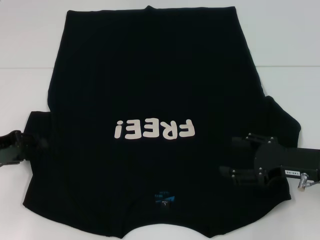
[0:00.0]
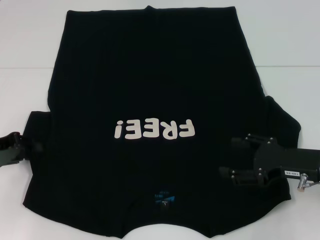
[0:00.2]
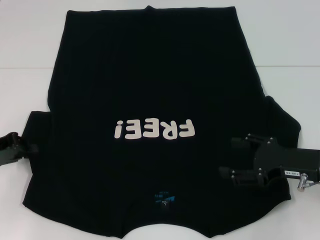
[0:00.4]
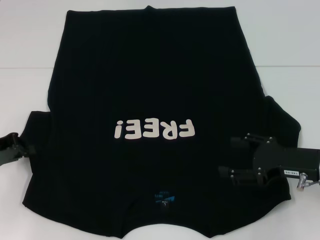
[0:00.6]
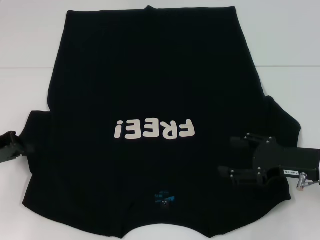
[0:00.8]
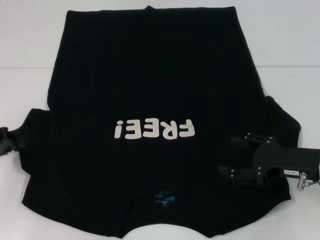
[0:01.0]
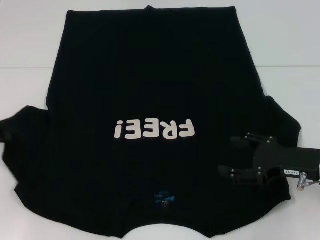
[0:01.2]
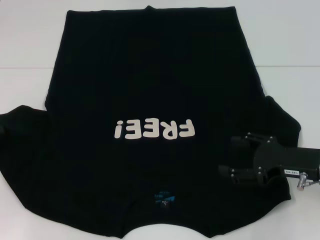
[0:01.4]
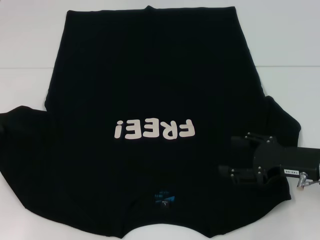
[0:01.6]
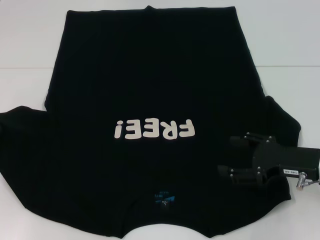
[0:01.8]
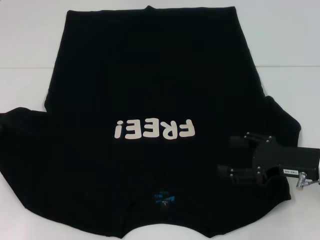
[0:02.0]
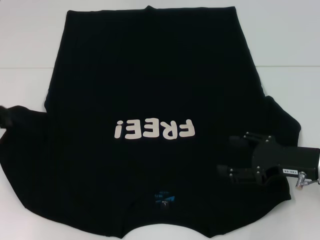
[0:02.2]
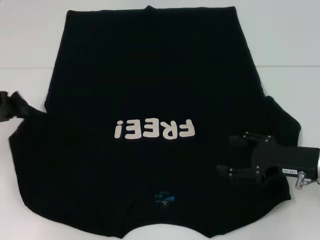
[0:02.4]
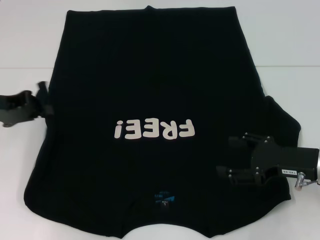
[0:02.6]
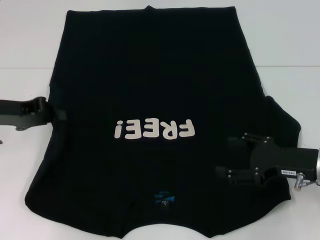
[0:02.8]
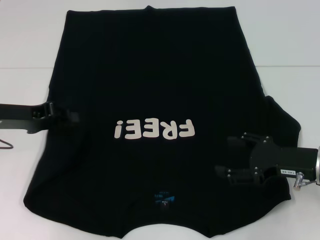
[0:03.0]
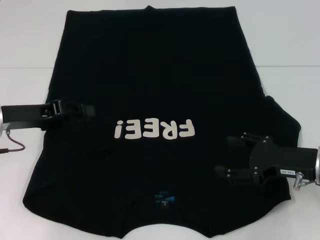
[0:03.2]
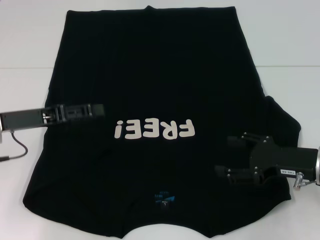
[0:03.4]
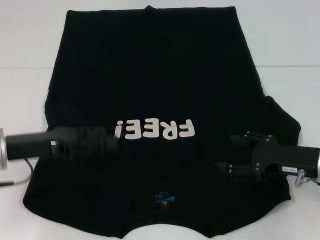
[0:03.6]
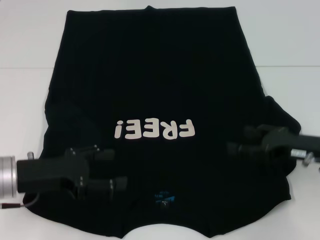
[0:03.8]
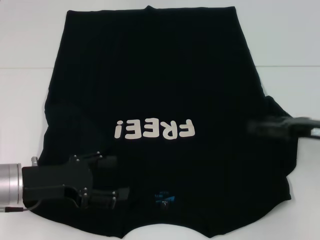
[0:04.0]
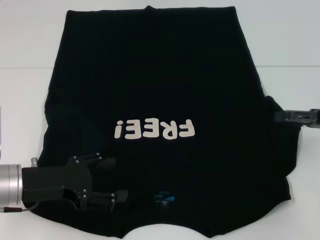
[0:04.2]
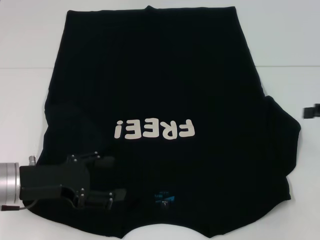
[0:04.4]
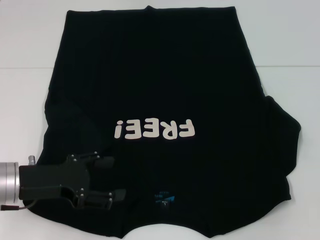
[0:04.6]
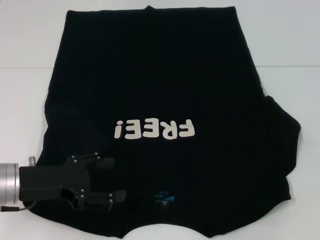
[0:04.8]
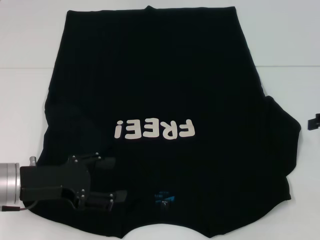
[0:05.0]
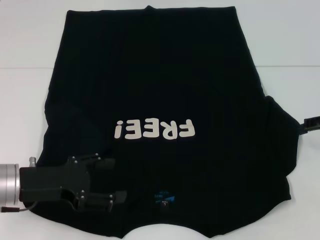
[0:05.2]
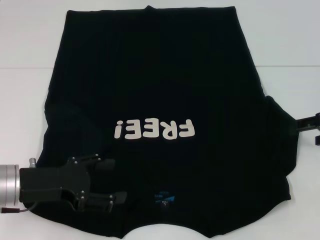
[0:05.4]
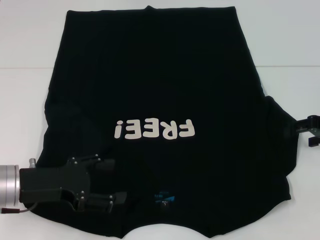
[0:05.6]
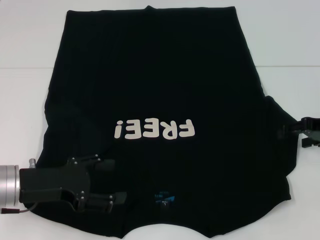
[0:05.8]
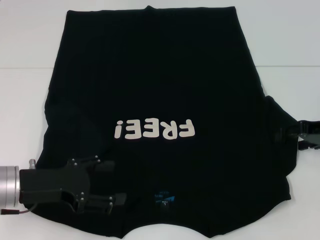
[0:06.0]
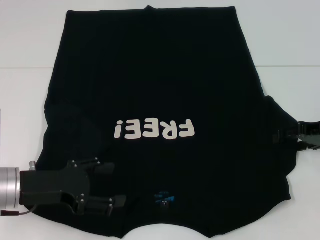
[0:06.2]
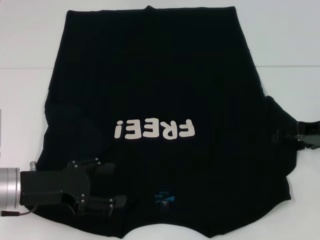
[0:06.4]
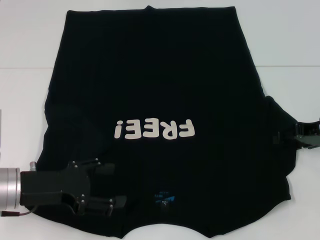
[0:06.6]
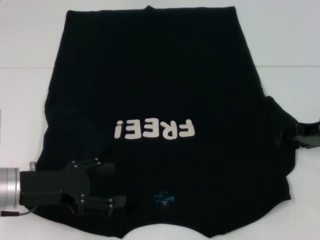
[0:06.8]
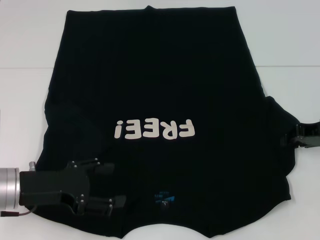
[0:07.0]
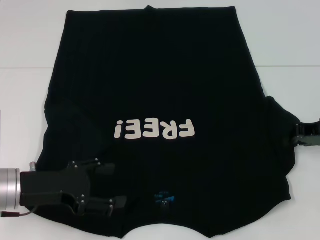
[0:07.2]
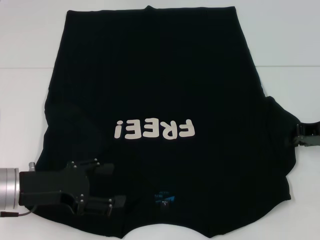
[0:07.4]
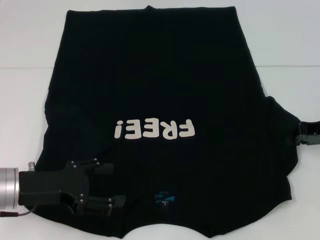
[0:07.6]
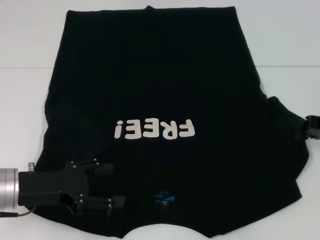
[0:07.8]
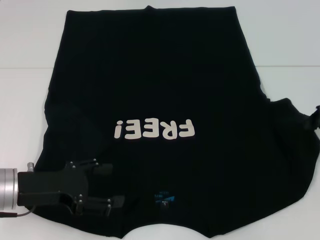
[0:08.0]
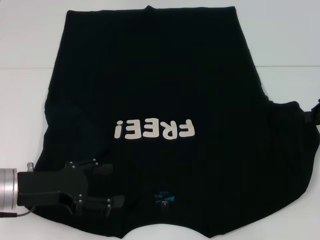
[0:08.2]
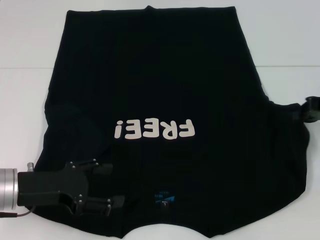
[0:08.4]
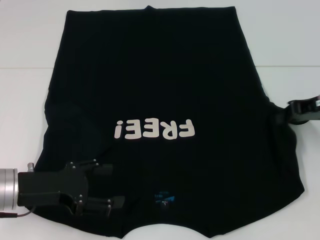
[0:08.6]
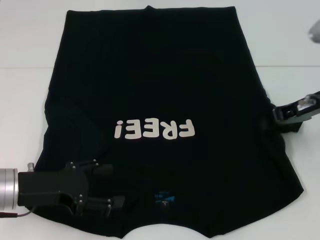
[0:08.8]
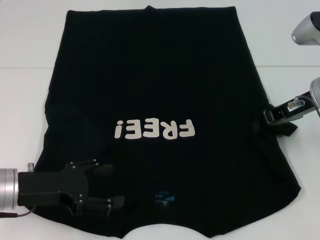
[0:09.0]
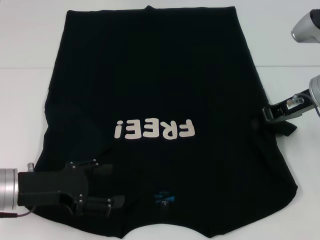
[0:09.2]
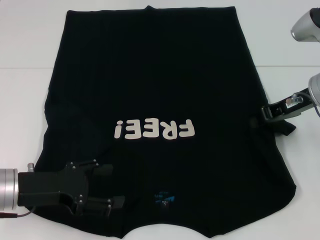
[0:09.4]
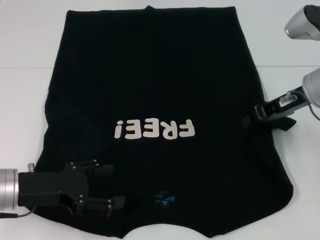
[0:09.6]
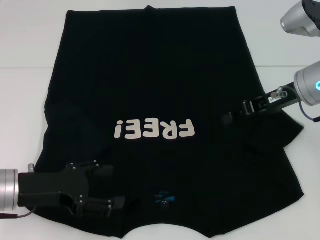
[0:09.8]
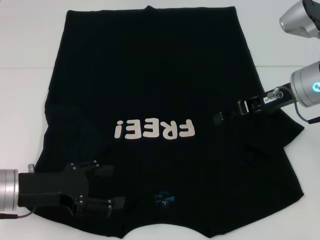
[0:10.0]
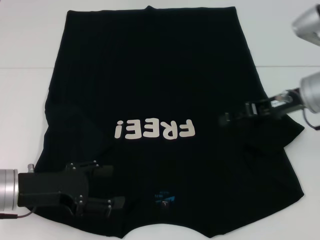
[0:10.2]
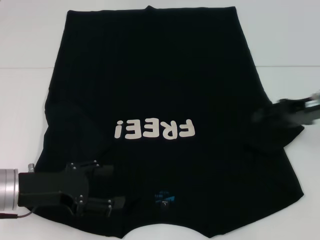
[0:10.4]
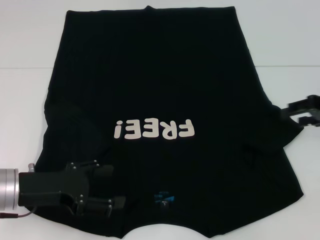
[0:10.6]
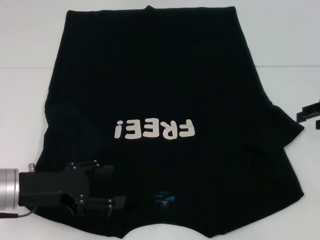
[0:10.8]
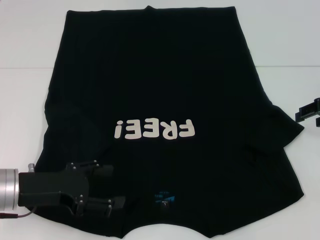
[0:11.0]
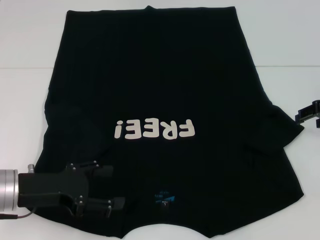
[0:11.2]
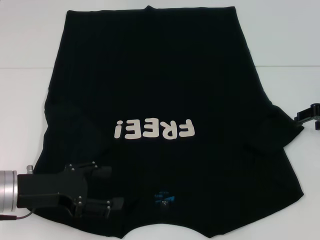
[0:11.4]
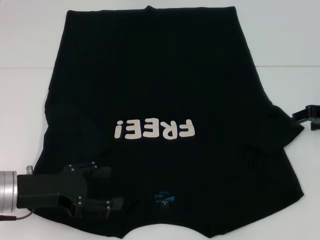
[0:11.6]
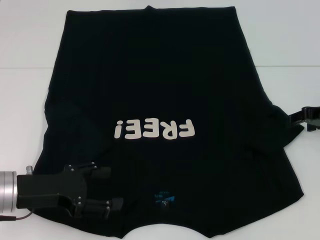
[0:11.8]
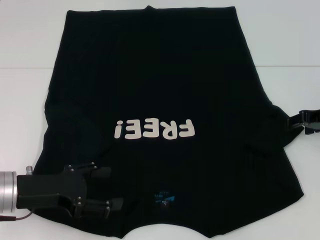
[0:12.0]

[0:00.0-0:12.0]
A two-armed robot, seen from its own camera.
Step, 0:00.0 to 0:03.6: Fold the bottom left sleeve with your left hand.
0:00.0 to 0:01.6: The left gripper moves approximately 5 cm, and closes.
0:01.6 to 0:03.0: The left gripper travels to the right by roughly 10 cm.
0:03.0 to 0:04.4: The left gripper goes some 10 cm backward and downward, and opens, while the right gripper moves to the right and upward, roughly 15 cm.
0:04.4 to 0:06.0: The right gripper shifts some 5 cm to the left.
0:06.0 to 0:07.6: The right gripper closes up.
0:07.6 to 0:09.0: The right gripper travels to the left by approximately 5 cm.
0:09.0 to 0:10.4: The right gripper opens up.

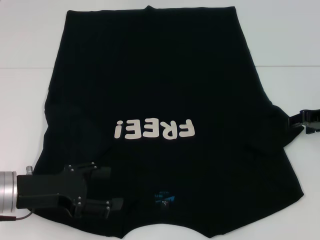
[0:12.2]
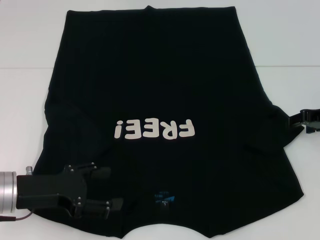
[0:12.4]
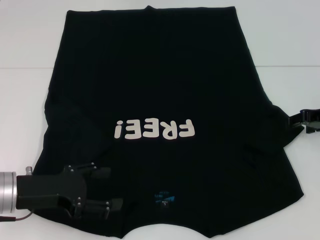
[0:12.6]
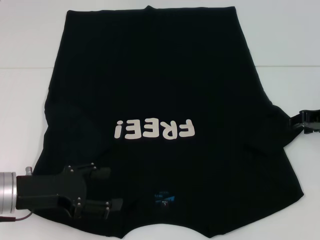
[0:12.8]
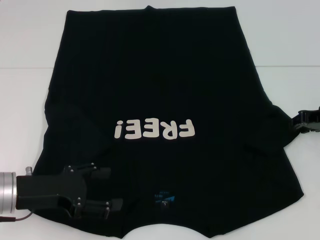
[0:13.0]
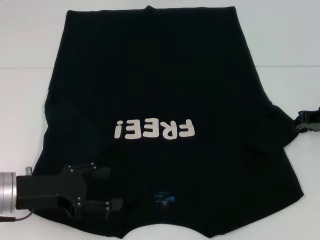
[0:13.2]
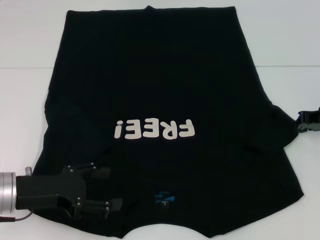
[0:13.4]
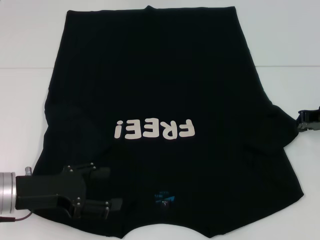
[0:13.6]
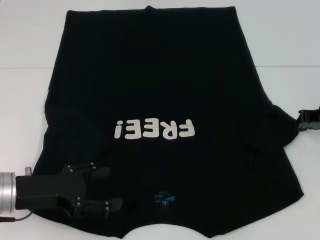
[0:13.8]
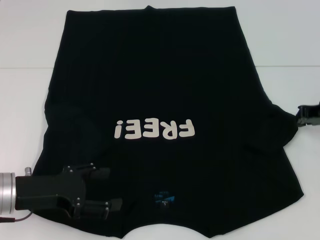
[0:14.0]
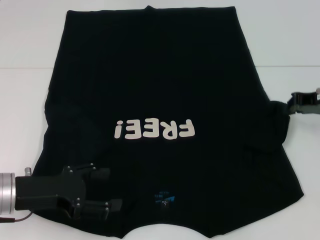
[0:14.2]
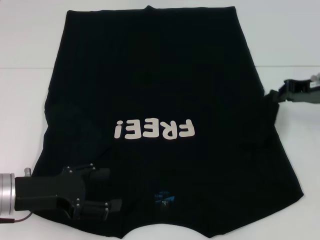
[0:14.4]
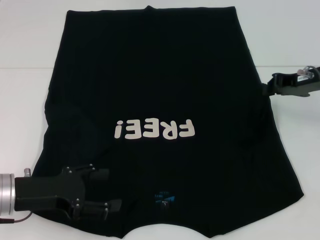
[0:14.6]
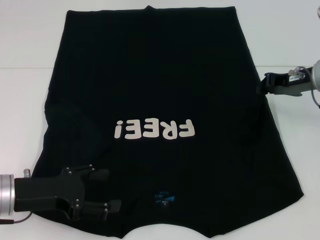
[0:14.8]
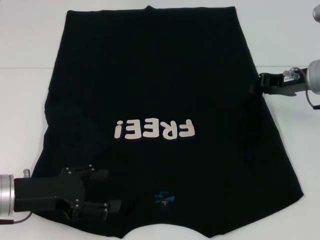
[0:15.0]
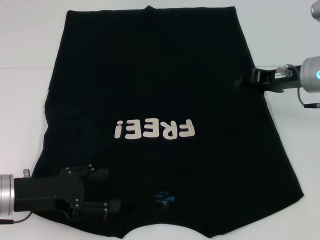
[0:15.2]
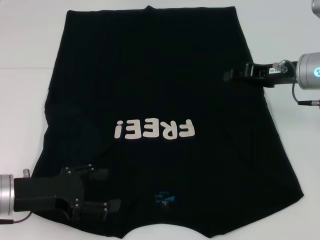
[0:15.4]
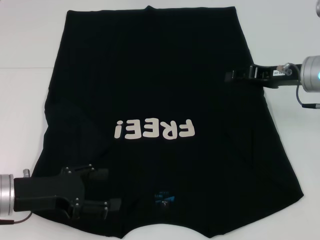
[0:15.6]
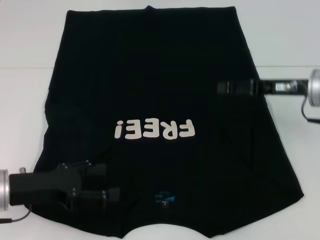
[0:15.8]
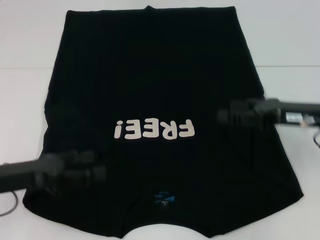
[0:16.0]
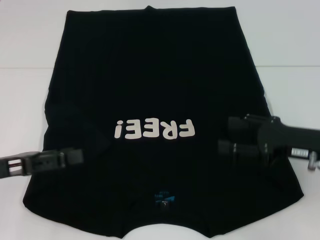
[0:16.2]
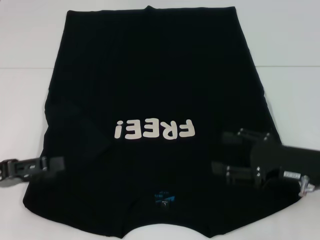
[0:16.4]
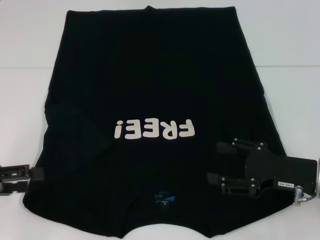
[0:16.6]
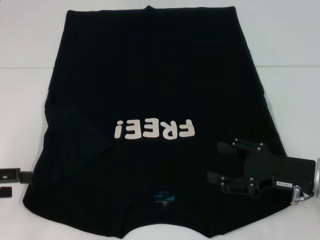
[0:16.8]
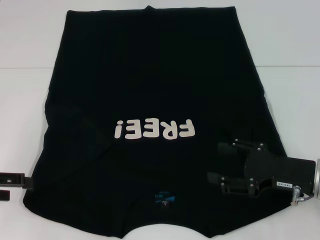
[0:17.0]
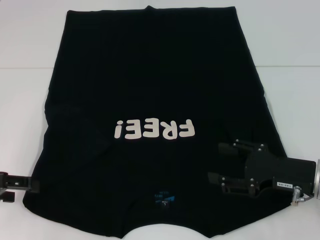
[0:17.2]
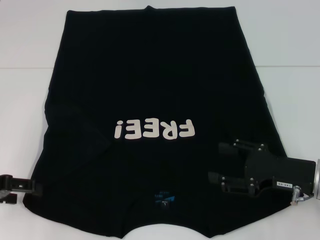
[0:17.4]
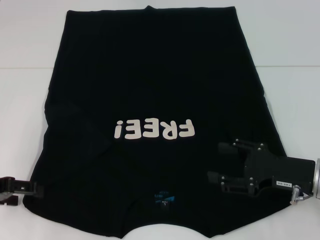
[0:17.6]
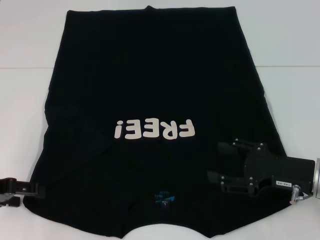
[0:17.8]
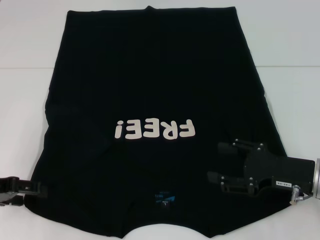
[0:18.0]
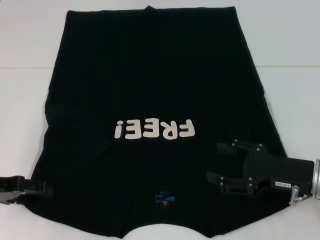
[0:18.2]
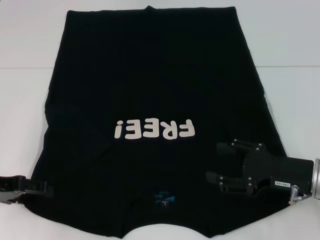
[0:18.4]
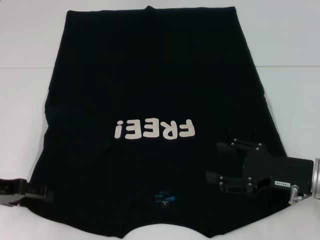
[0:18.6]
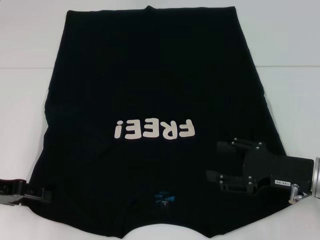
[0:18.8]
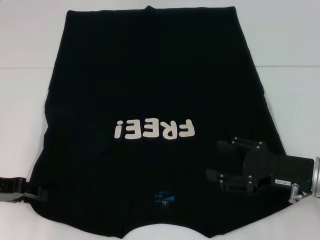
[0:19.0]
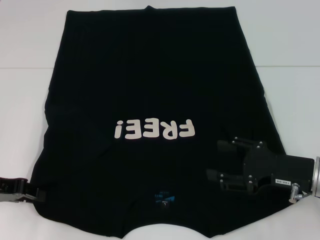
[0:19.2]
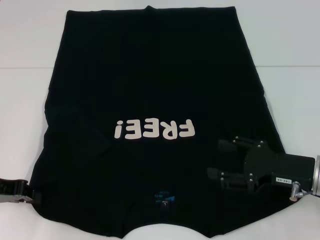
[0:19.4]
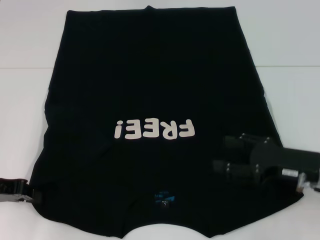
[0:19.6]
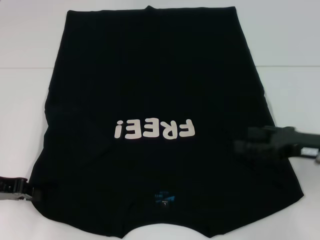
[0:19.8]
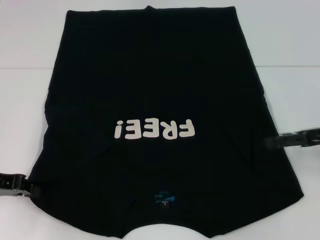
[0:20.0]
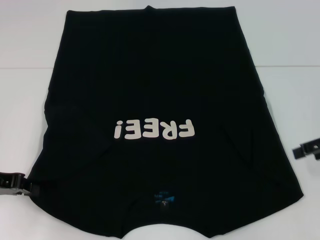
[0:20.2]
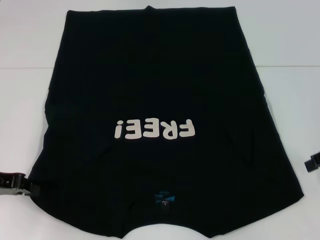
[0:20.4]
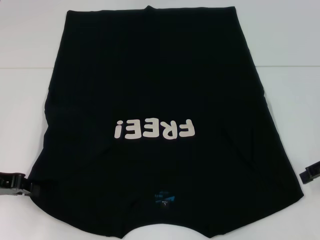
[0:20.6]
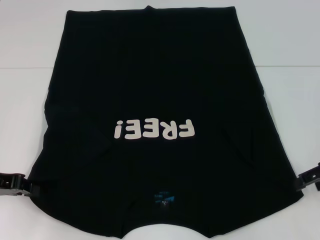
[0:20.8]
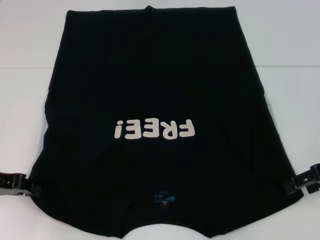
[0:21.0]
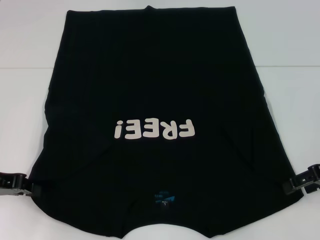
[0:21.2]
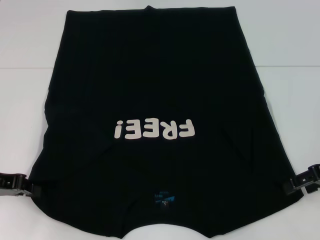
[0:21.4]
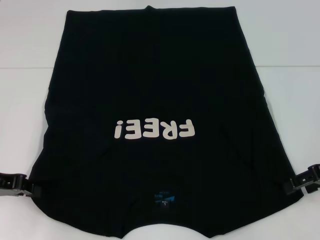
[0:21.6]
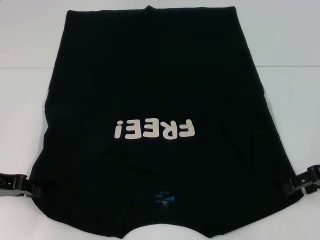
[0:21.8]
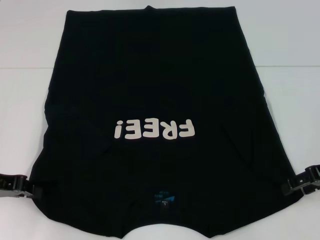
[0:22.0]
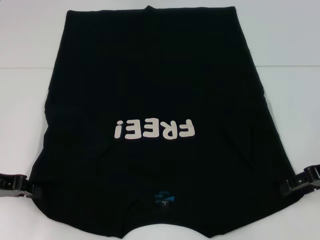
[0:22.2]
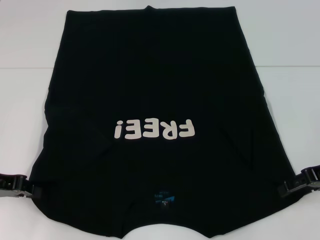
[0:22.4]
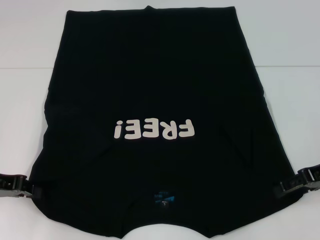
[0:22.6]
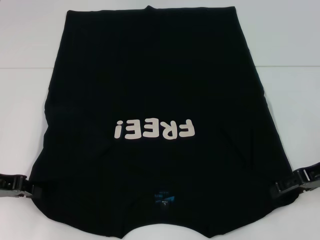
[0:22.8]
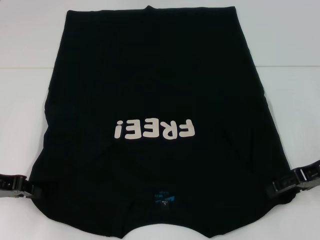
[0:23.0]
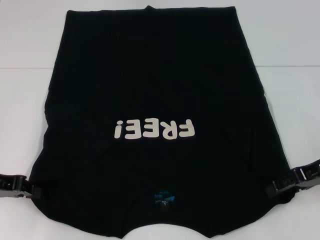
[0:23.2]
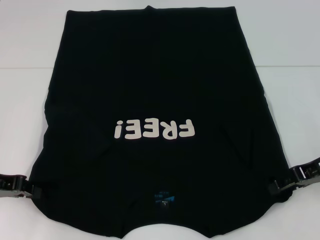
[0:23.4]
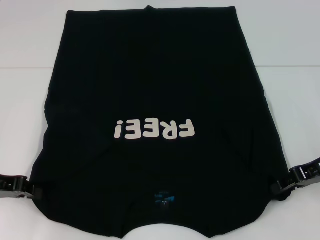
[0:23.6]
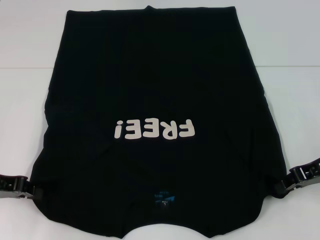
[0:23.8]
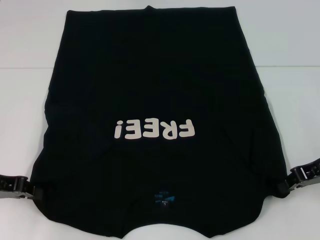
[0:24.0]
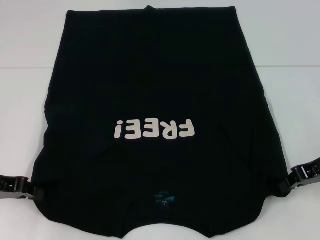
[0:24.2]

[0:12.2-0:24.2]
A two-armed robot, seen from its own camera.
Step, 0:12.2 to 0:16.4: Fold the bottom right sleeve with your right hand.
Step, 0:16.6 to 0:23.4: Grab the bottom left corner with your left hand.
Step, 0:16.6 to 0:23.4: Grab the bottom right corner with your right hand.
0:13.8 to 0:15.2: The right gripper travels to the left by about 5 cm.
0:15.2 to 0:16.6: The right gripper is displaced backward and downward by approximately 15 cm, and opens. Meanwhile the left gripper travels to the left by about 10 cm.
0:16.6 to 0:18.2: The left gripper moves roughly 5 cm.
0:18.2 to 0:19.8: The left gripper closes its fingers; the right gripper shifts by approximately 5 cm.
0:21.2 to 0:22.6: The grippers move only a little.
0:22.6 to 0:24.2: The right gripper closes its fingers.
